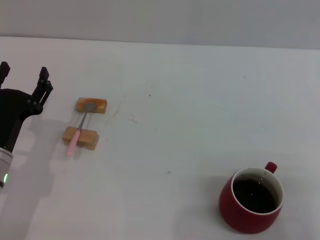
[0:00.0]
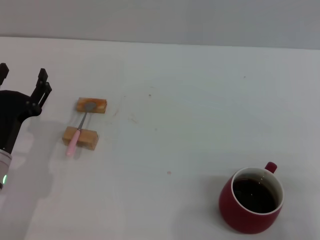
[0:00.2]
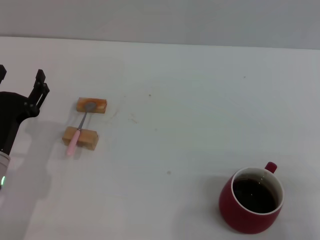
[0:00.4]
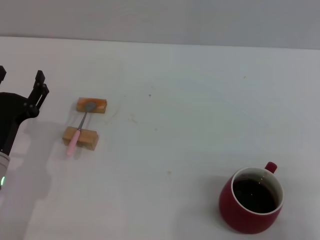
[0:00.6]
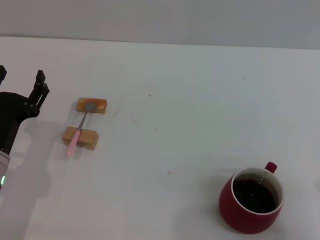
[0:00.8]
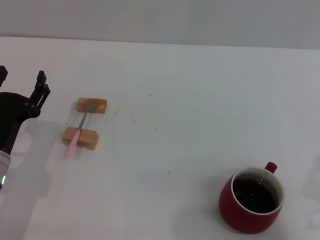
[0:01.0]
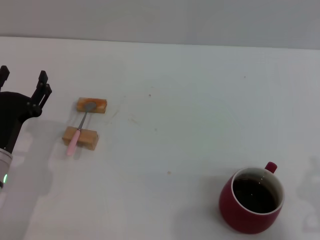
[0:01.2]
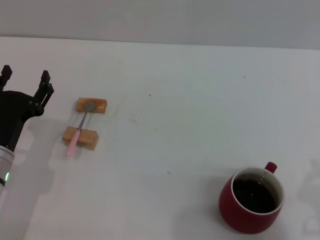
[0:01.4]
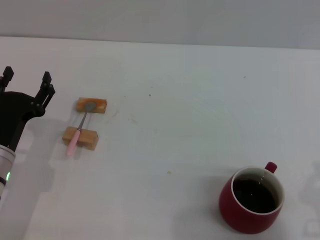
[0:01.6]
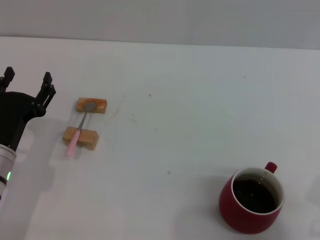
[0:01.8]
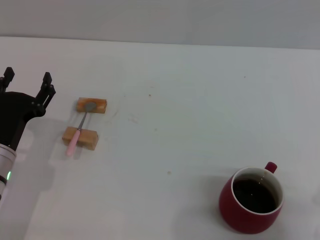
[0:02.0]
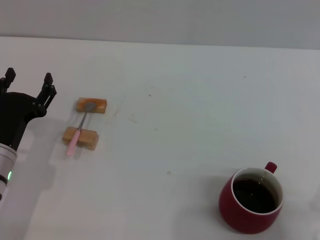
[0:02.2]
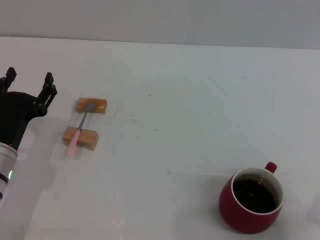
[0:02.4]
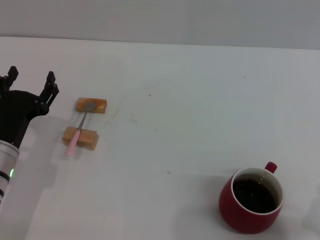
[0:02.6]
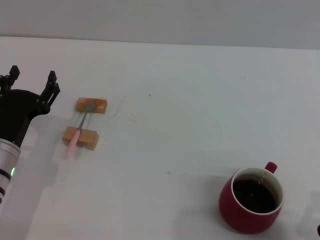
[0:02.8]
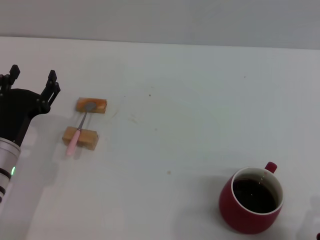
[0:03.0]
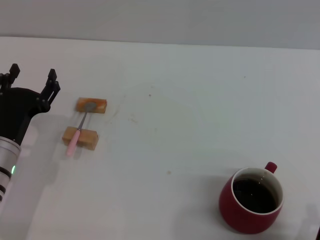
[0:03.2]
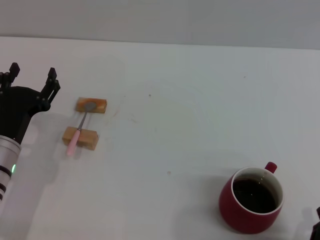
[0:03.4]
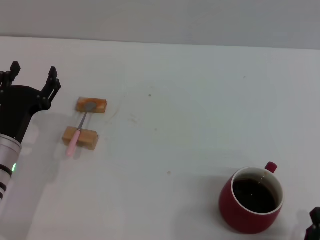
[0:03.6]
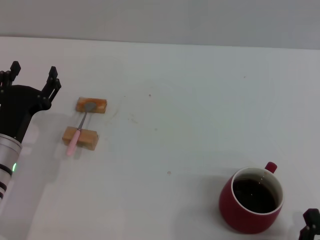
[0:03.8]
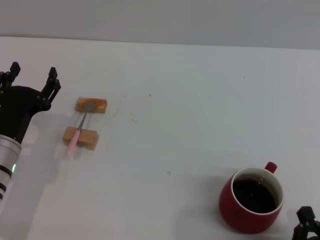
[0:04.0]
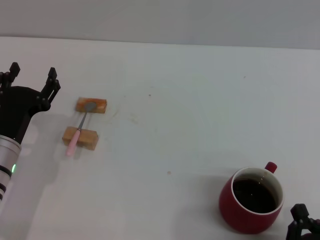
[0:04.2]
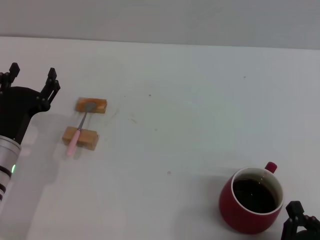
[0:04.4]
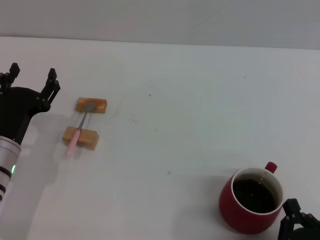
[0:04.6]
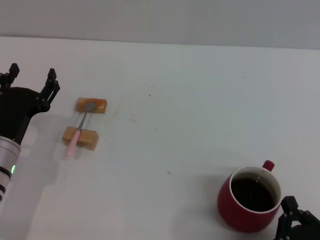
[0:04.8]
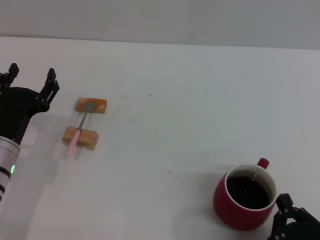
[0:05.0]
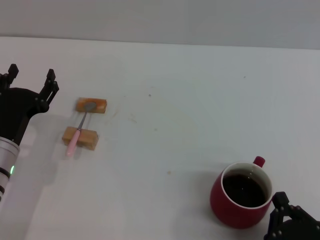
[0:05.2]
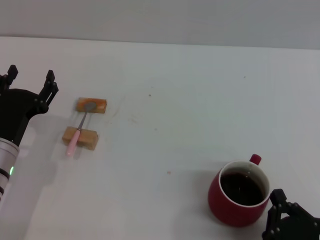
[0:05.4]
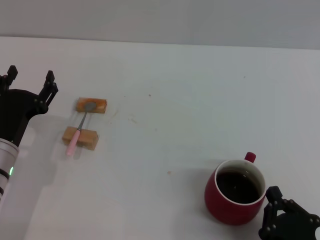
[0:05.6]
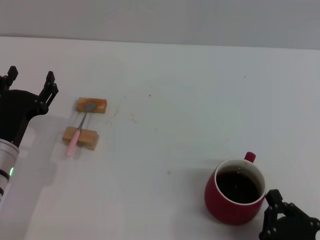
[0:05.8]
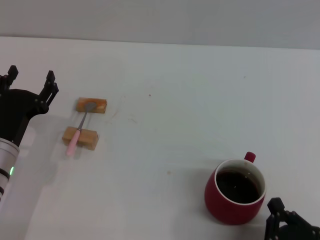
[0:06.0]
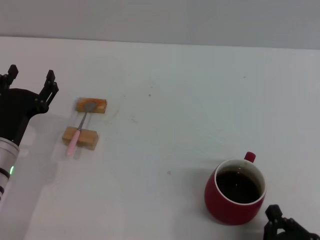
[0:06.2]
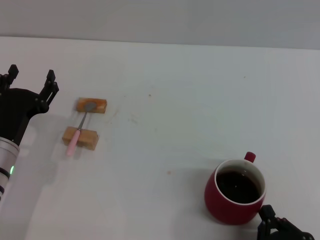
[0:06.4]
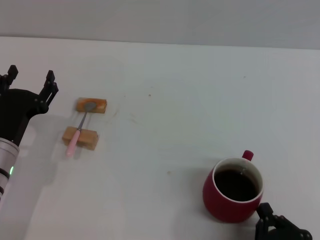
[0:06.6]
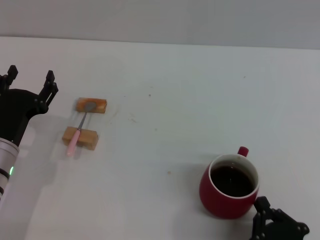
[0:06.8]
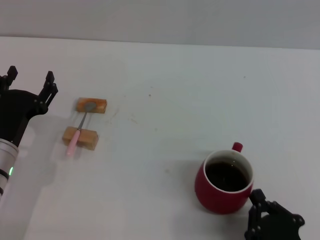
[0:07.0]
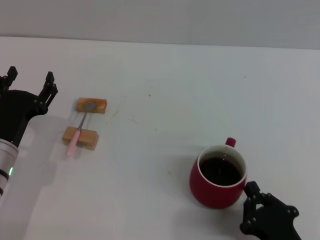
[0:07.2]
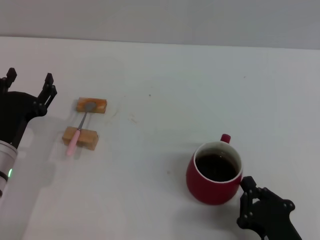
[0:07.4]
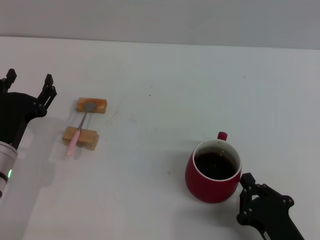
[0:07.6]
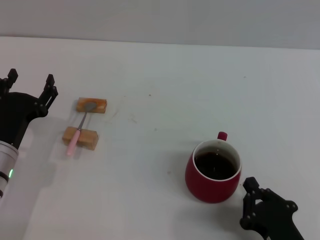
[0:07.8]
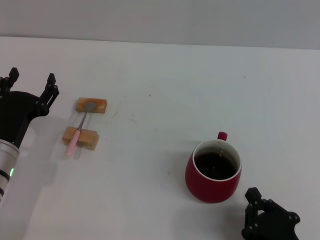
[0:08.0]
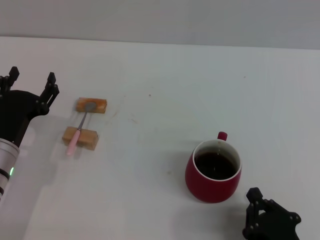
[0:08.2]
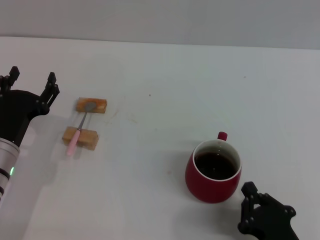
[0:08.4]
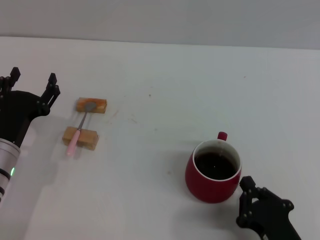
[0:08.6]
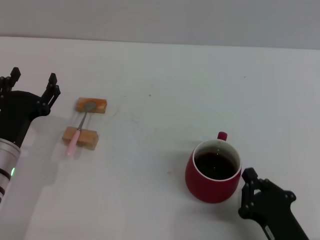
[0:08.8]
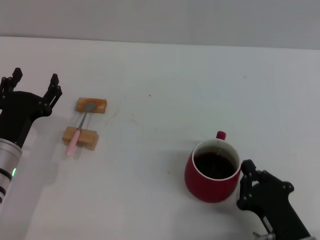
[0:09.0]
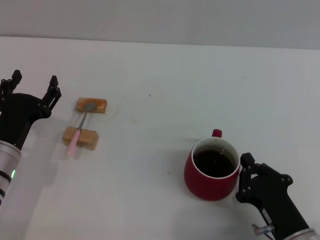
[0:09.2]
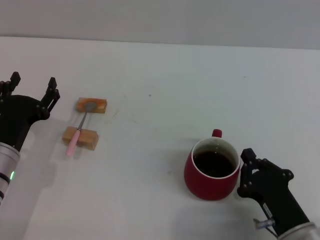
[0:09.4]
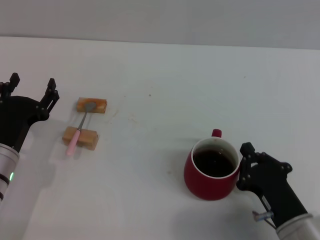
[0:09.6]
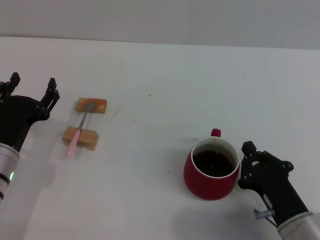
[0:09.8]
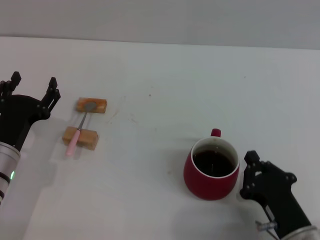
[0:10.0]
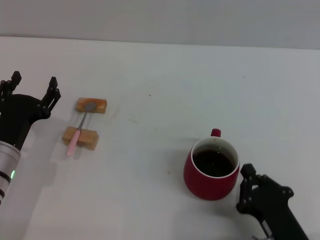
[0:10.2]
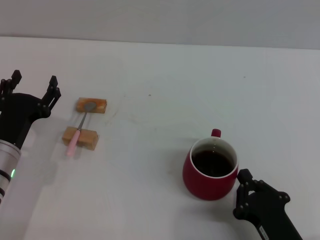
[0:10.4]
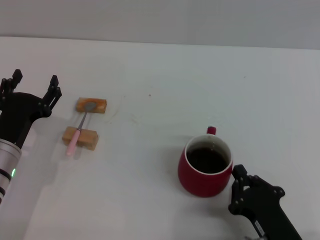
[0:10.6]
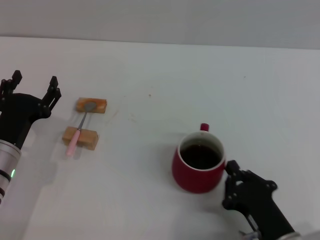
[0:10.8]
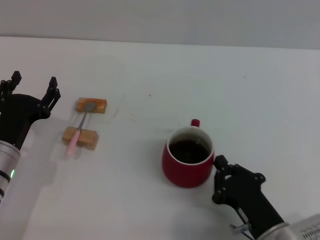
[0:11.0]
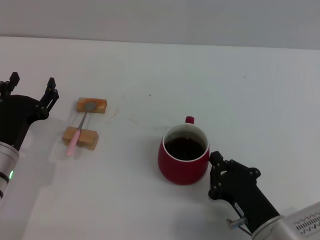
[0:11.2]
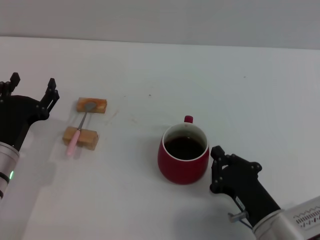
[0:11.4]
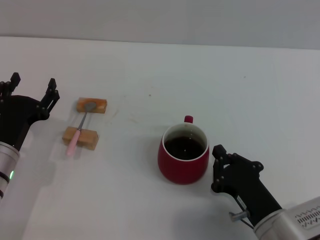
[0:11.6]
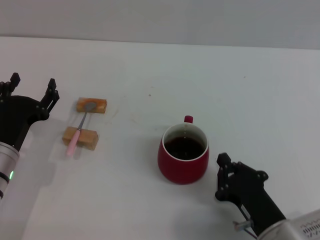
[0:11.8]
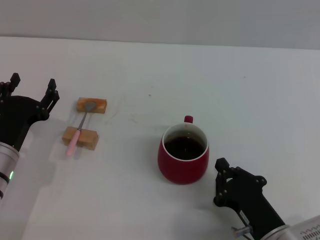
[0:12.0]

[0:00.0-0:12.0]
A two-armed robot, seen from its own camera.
Task of the whole recording: Move the red cup to the center, lift the pink spoon, stir it three times in the cup, and put the spoon into the cup.
0:03.0 to 0:06.0: The grippers move only a little.
0:06.0 to 0:07.6: The grippers move only a little.
0:07.6 to 0:10.4: The grippers make only small movements.
0:10.4 to 0:12.0: The grippers move only a little.

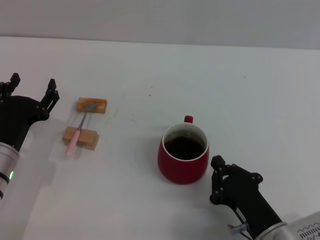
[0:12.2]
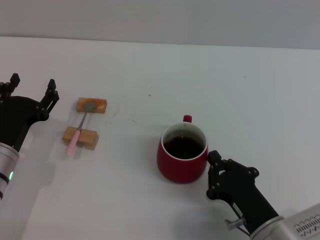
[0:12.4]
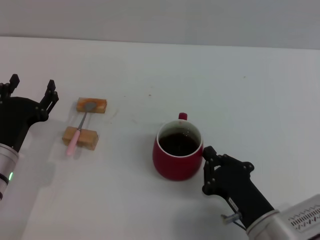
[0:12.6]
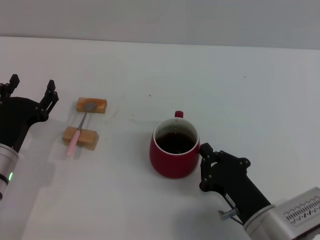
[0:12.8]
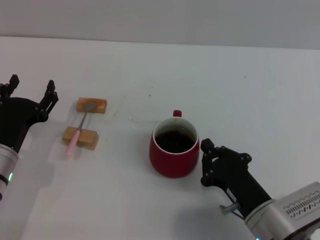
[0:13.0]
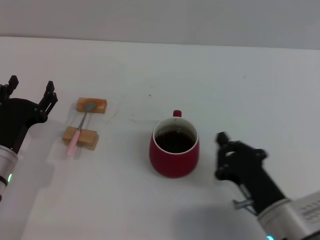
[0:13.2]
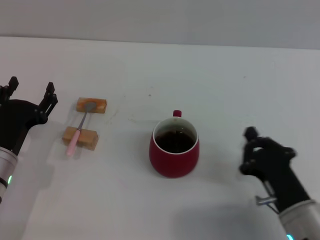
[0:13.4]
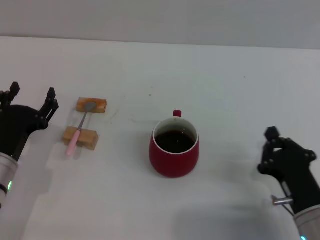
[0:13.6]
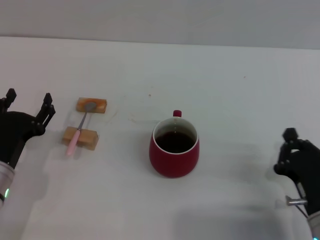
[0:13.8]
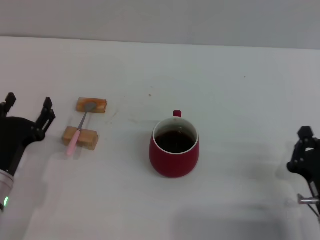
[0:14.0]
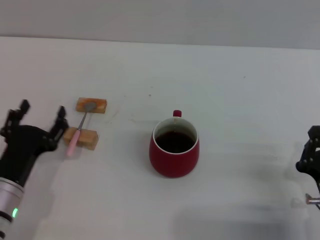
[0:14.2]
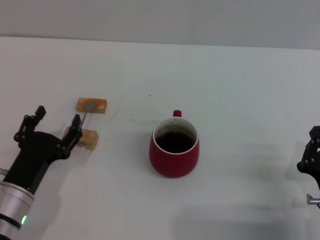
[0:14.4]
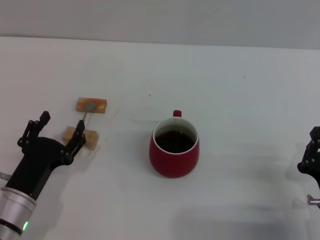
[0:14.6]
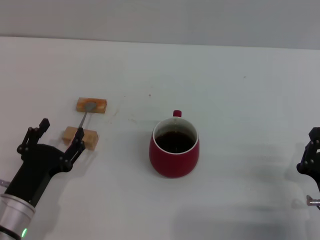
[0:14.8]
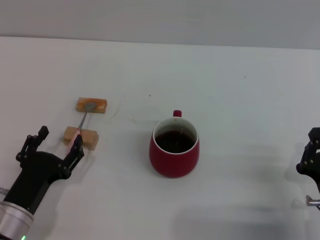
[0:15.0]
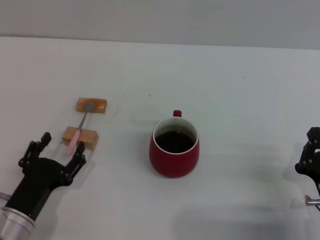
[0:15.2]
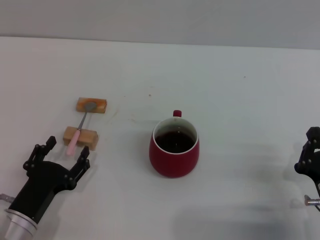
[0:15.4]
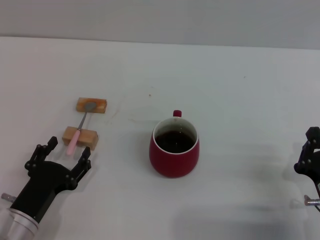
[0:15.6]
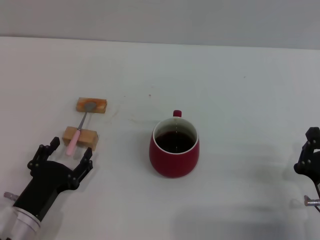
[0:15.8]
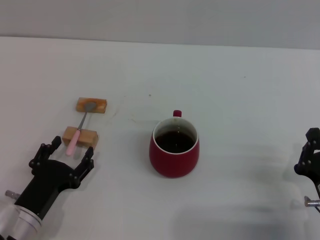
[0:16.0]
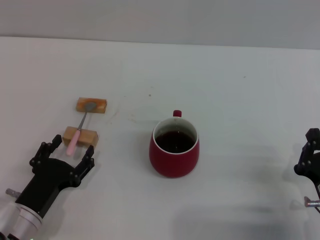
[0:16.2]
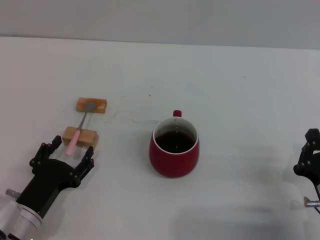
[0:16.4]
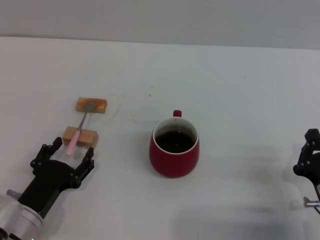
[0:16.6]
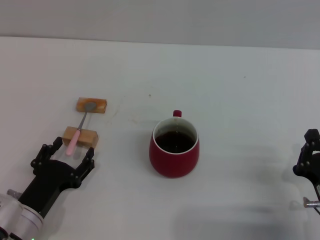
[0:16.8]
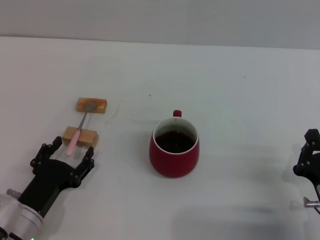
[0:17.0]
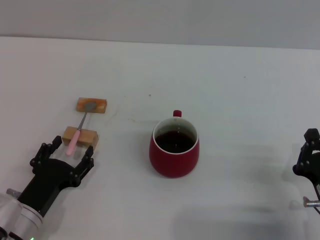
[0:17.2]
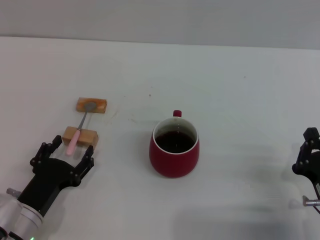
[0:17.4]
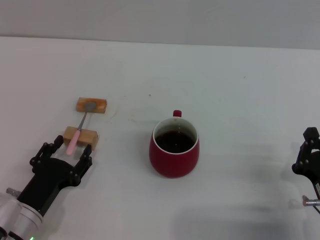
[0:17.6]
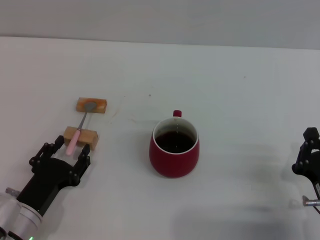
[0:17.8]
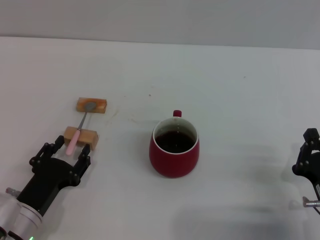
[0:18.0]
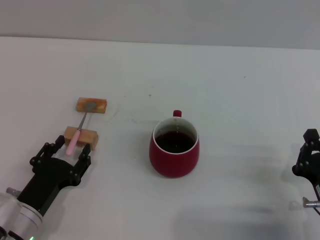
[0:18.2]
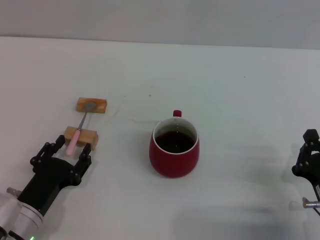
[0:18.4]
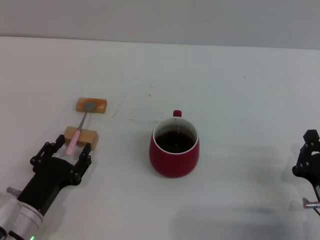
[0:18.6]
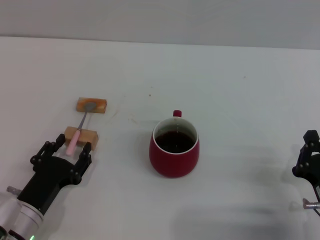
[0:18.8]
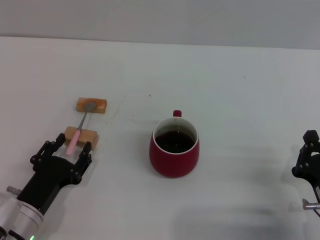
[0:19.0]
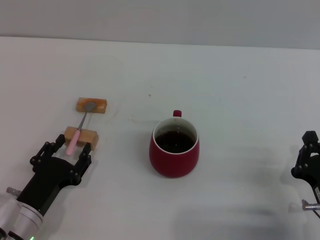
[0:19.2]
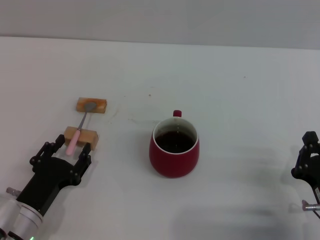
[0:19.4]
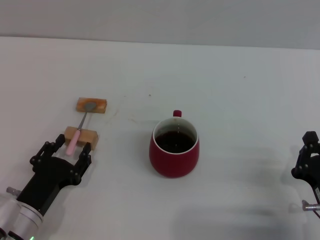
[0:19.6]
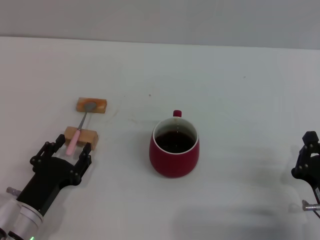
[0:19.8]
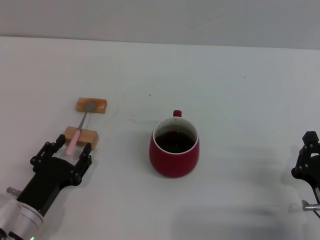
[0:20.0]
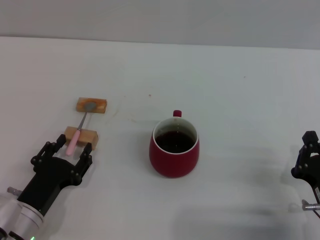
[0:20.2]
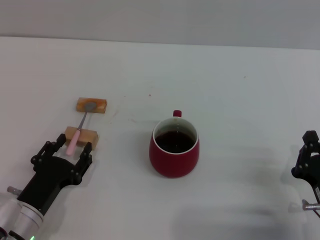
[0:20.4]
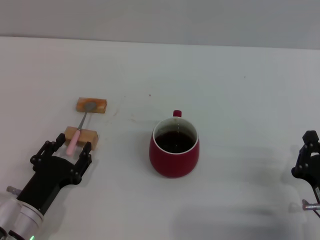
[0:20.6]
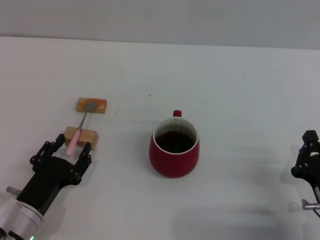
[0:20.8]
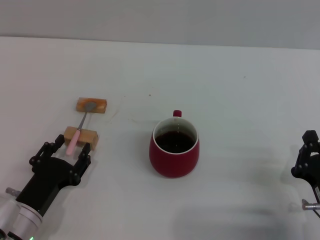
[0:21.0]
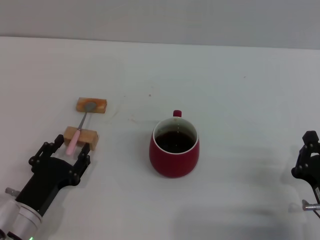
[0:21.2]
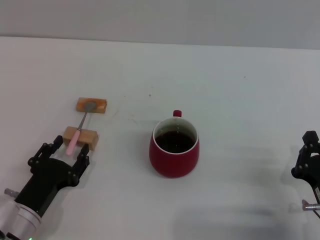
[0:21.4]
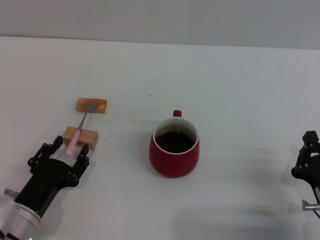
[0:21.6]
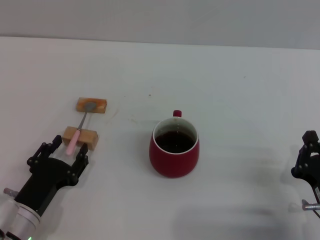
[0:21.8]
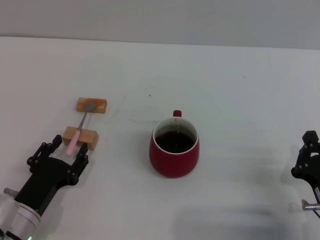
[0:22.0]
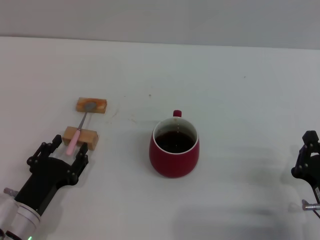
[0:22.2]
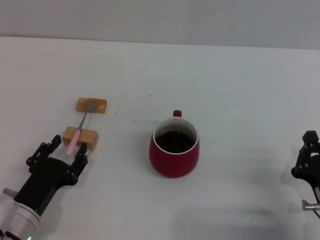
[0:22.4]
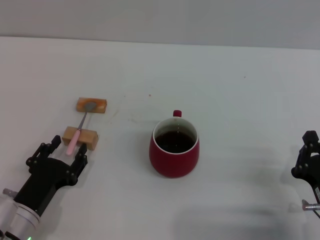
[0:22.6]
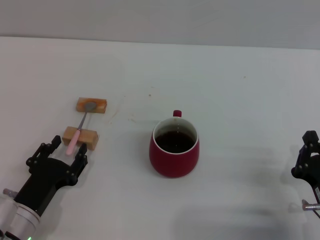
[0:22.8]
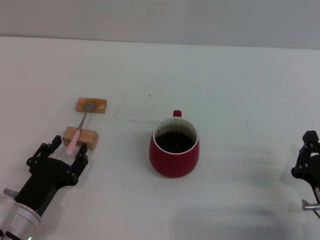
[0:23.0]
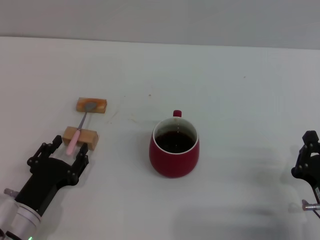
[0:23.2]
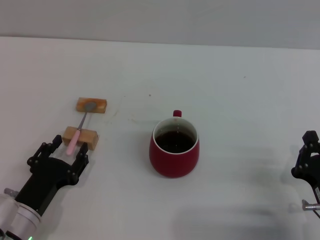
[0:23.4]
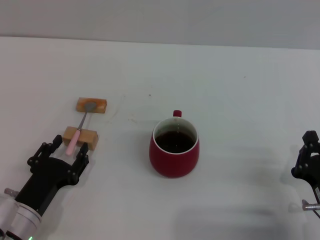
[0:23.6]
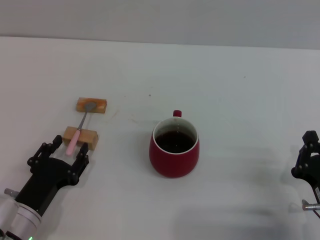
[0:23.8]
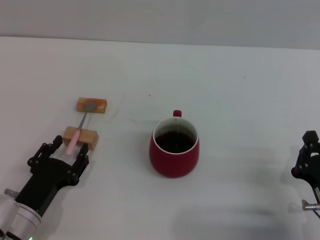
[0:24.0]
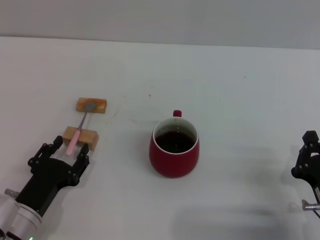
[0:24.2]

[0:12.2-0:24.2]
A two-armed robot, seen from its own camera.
Task of the whole recording: Move the red cup to the center, lift the pink spoon, stir it three times in the cup, and put the spoon into the cup.
0:12.2 to 0:13.8: The right gripper moves to the right, some 5 cm.
0:13.8 to 0:15.2: The left gripper heads backward, covering approximately 5 cm.
0:15.2 to 0:16.6: The grippers stay close to where they were, moving slightly.
0:16.6 to 0:24.2: Both grippers stay put.
